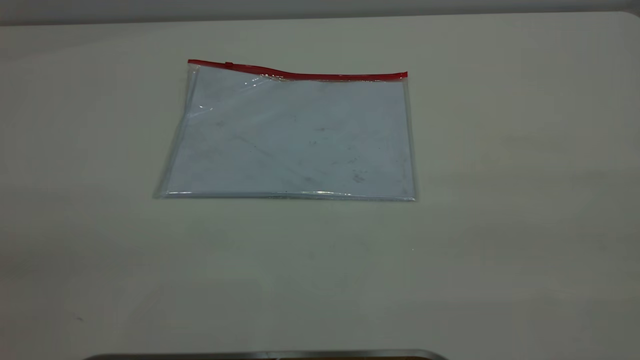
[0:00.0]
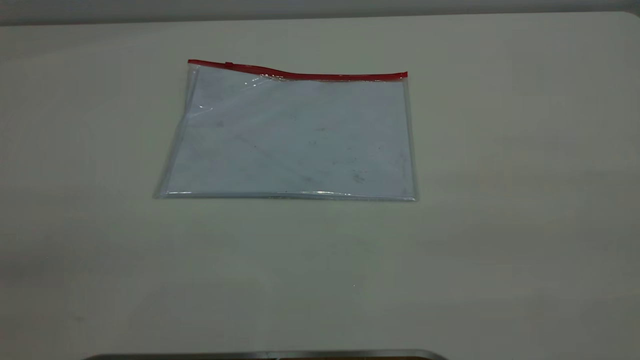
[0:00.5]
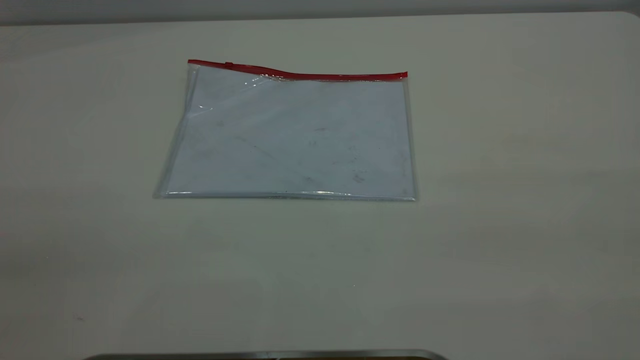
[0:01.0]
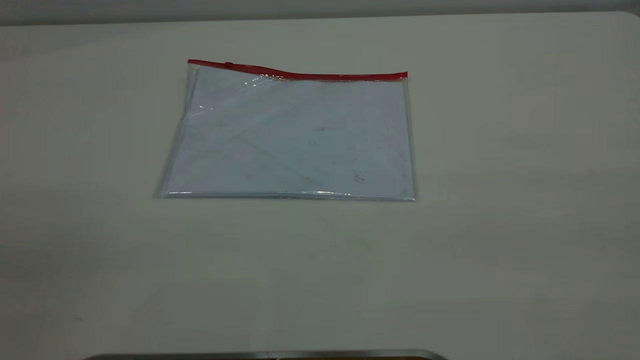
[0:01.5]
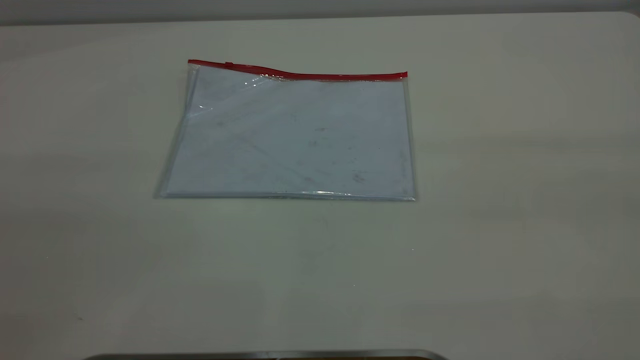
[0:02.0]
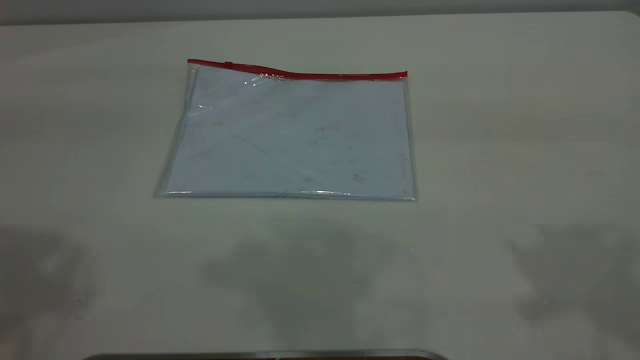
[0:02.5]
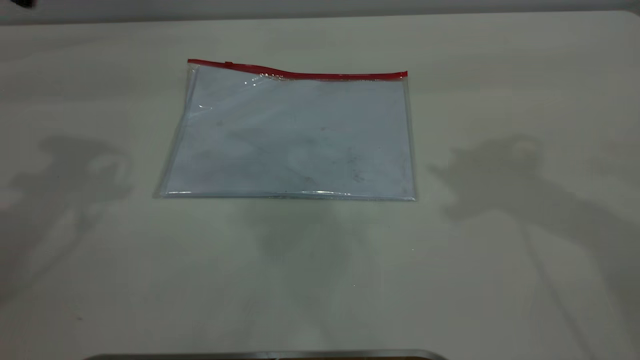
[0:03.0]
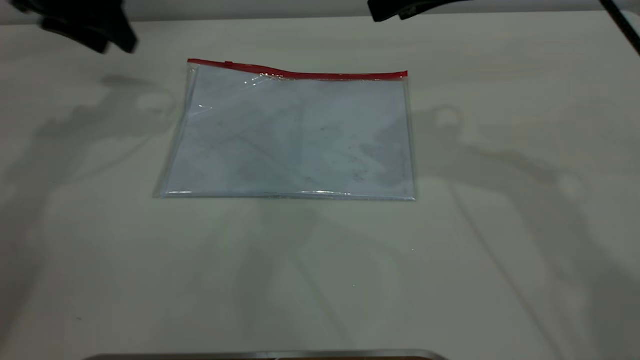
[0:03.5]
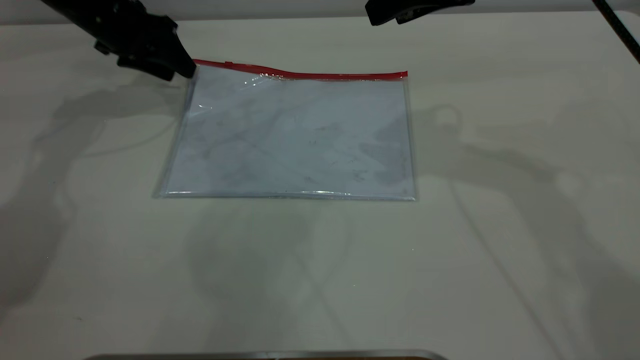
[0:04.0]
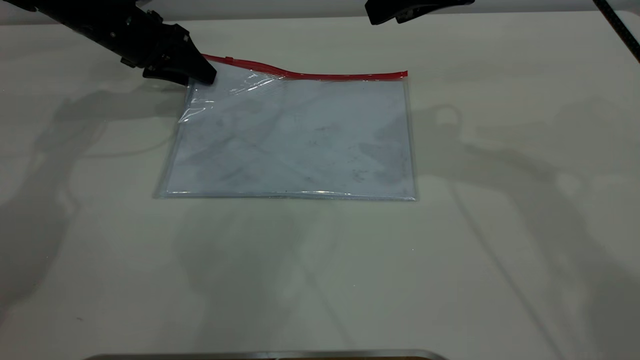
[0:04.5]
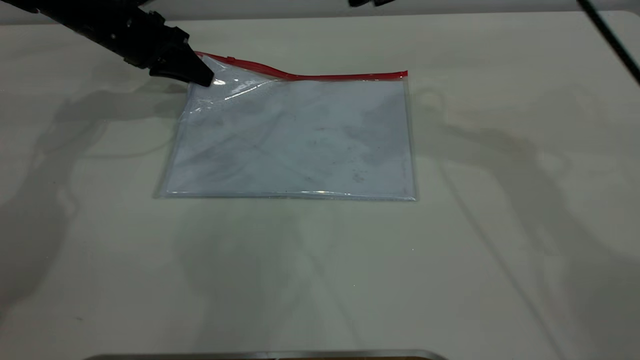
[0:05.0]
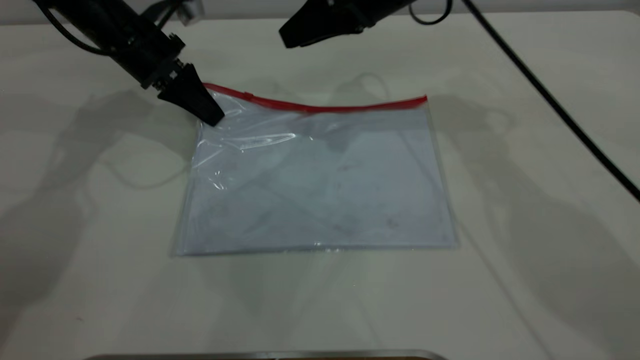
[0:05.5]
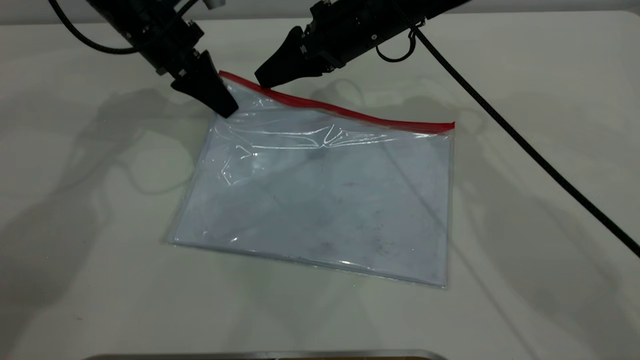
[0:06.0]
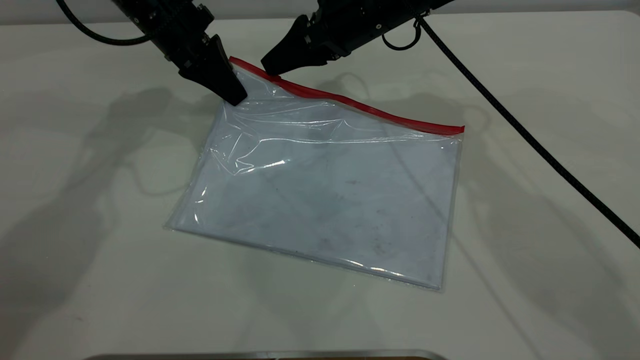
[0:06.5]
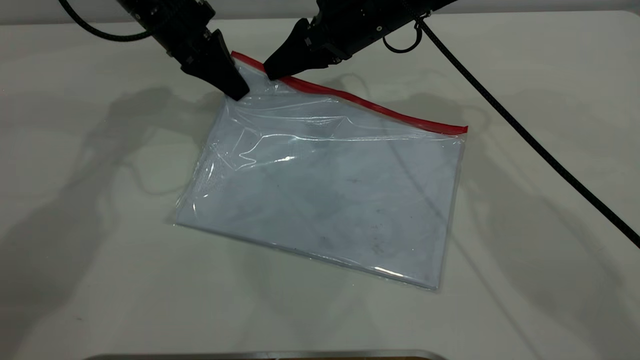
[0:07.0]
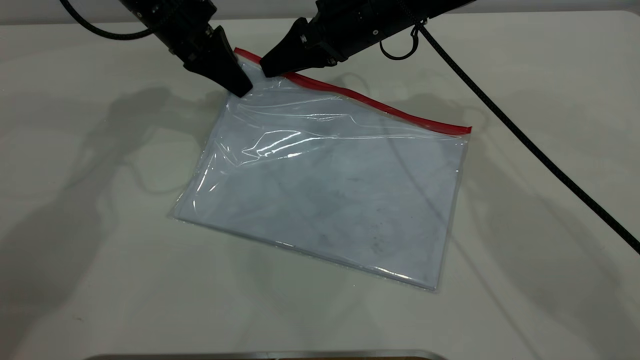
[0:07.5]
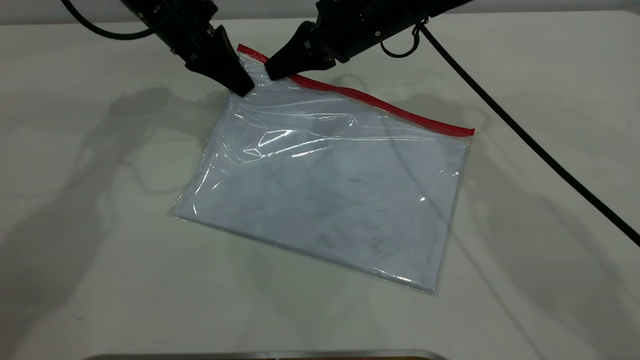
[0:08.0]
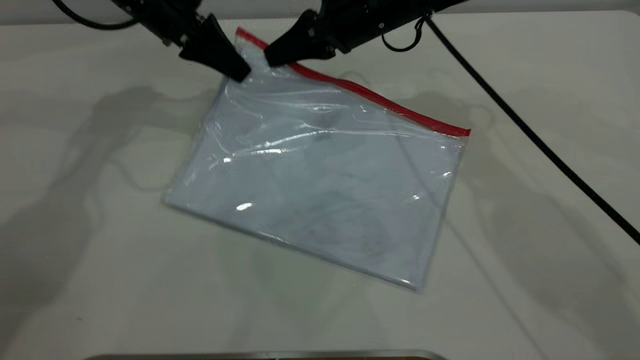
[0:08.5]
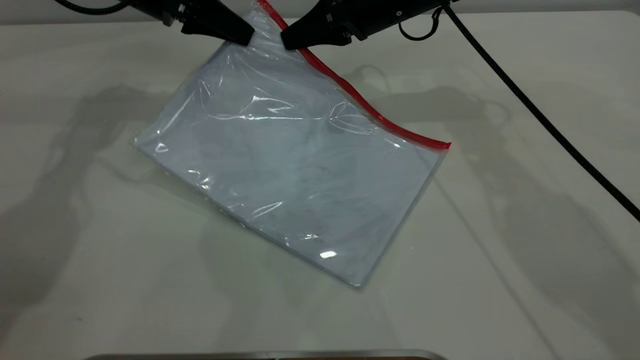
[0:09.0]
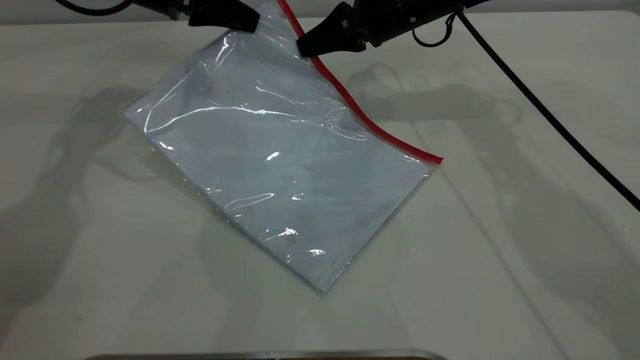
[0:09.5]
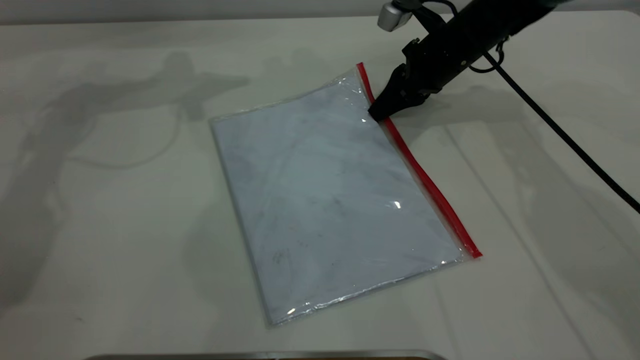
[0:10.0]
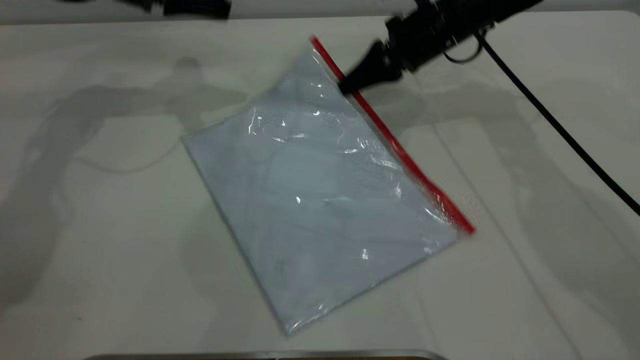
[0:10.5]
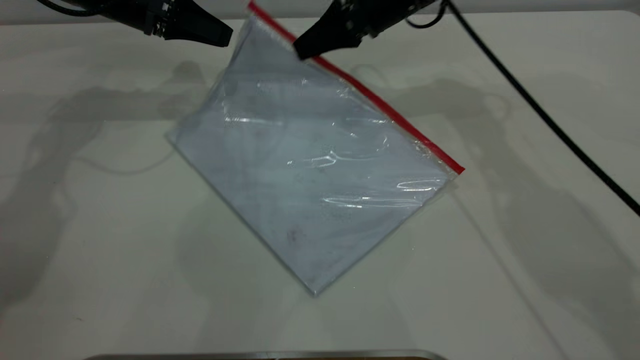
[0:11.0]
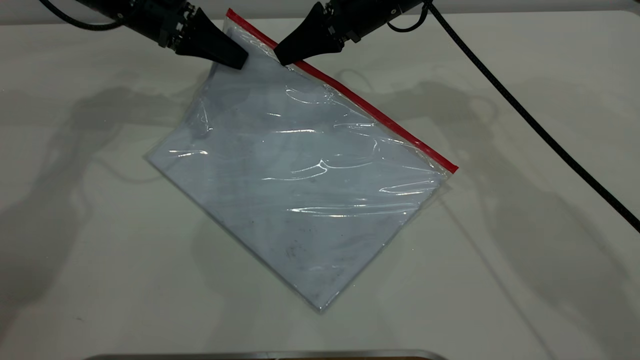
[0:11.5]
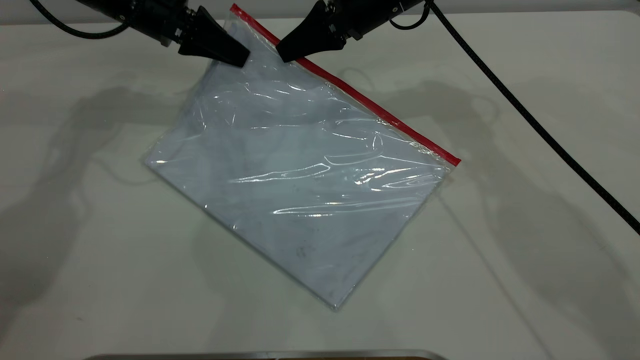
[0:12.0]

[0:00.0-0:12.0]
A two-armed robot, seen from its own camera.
Step, 0:00.0 to 0:04.5: Pick up the transparent plastic bag with the left gripper.
0:02.0 to 0:04.0: The right gripper heads forward, downward and to the left, covering about 40 cm. The left gripper moves forward and downward, some 60 cm.
0:04.0 to 0:06.0: The left gripper moves to the right, about 5 cm, and closes its fingers; the right gripper travels downward, to the left and forward by about 20 cm.
0:06.0 to 0:08.0: The right gripper closes.
0:08.0 to 0:10.0: The left gripper moves to the left, about 5 cm; the right gripper moves to the right and downward, roughly 10 cm.
0:10.0 to 0:12.0: The left gripper is displaced downward by roughly 5 cm, and opens, then closes again; the right gripper travels to the left and upward by about 10 cm.

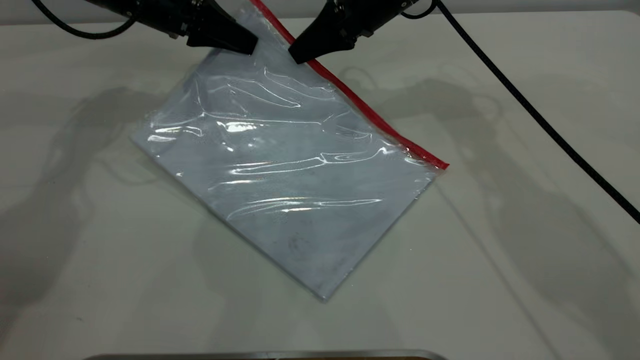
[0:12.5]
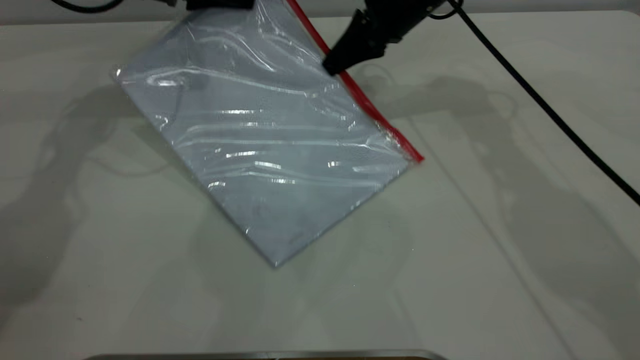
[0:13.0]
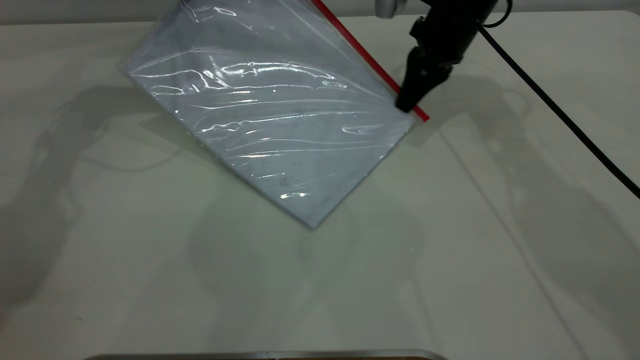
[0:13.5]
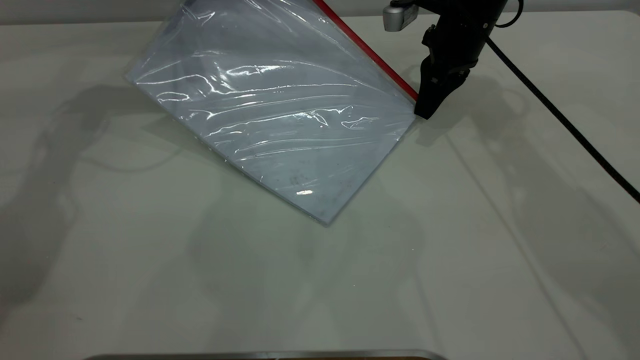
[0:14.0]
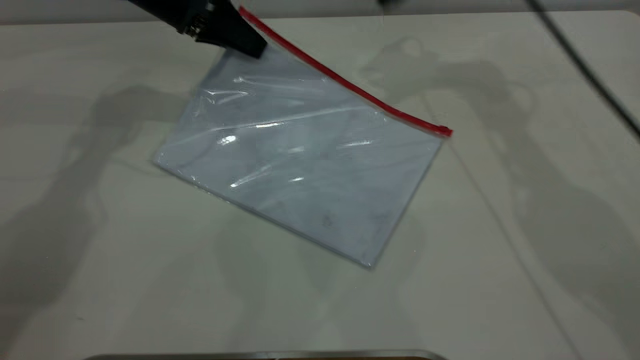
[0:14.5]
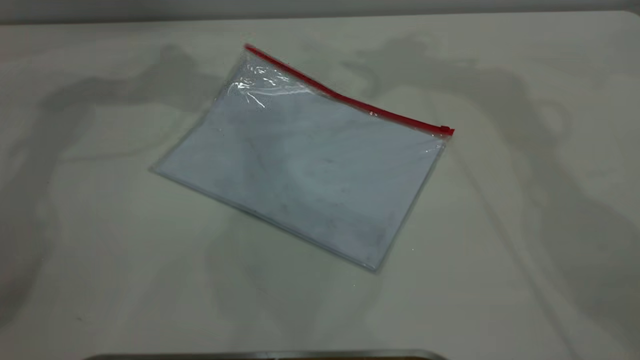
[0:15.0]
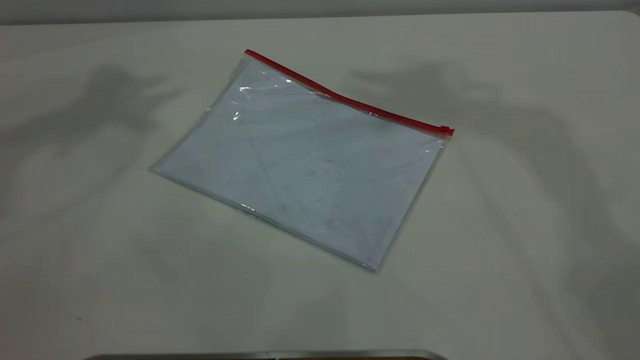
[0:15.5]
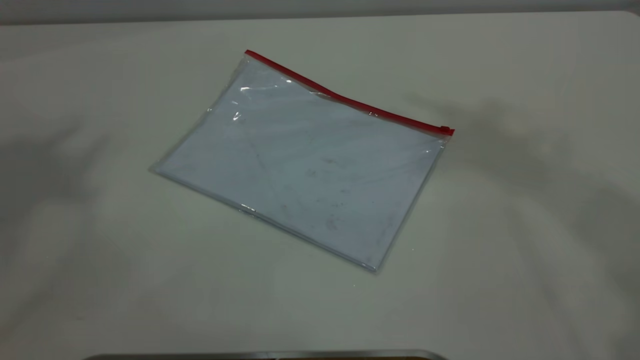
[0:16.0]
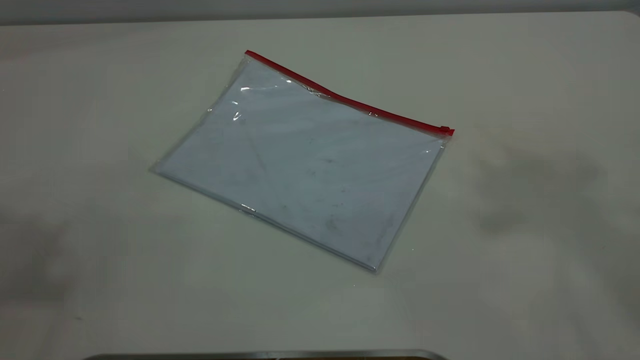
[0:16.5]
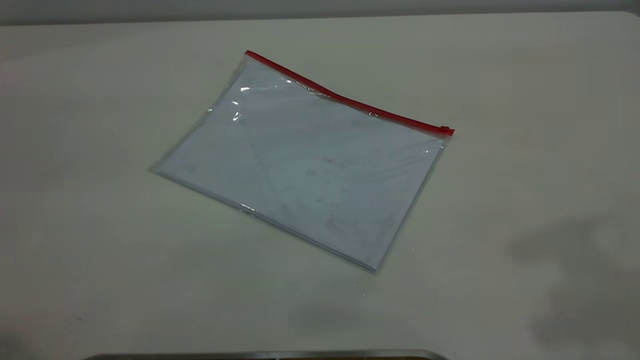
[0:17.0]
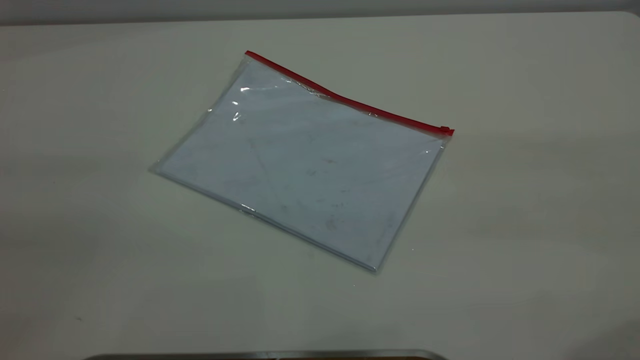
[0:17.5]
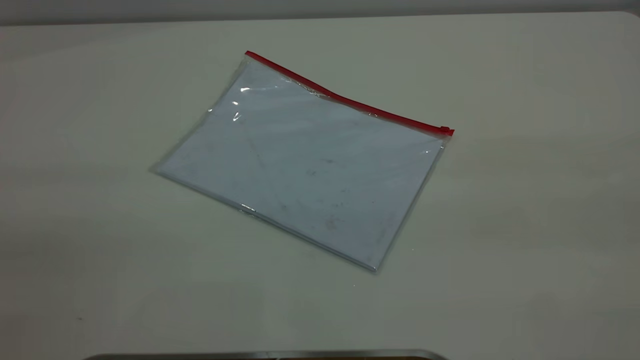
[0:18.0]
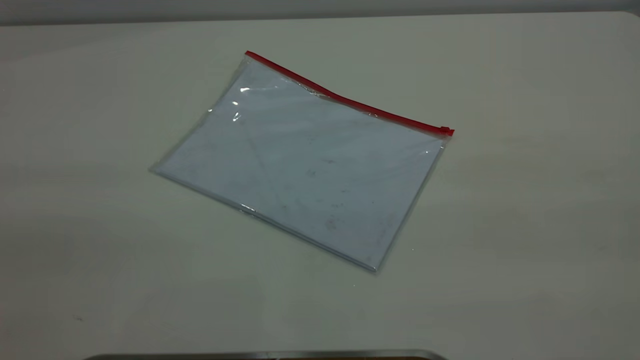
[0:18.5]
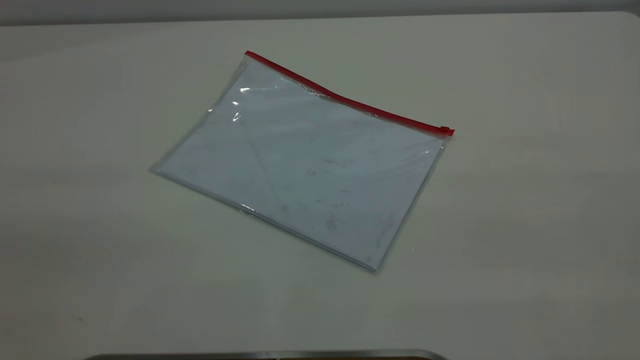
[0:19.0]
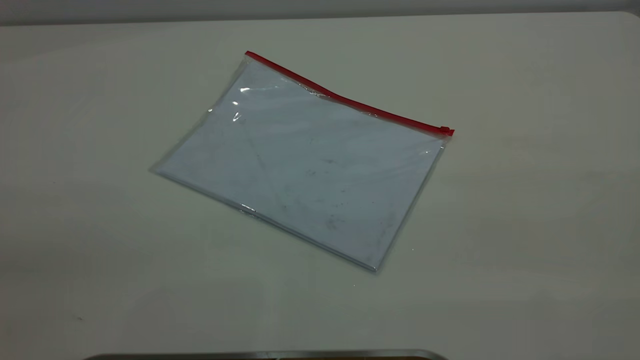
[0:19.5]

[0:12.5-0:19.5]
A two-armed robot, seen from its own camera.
0:12.5 to 0:14.5: The left gripper opens its fingers, while the right gripper is displaced upward and to the right by roughly 15 cm, and opens its fingers.
0:14.5 to 0:16.0: The two grippers go about 50 cm upward and backward.

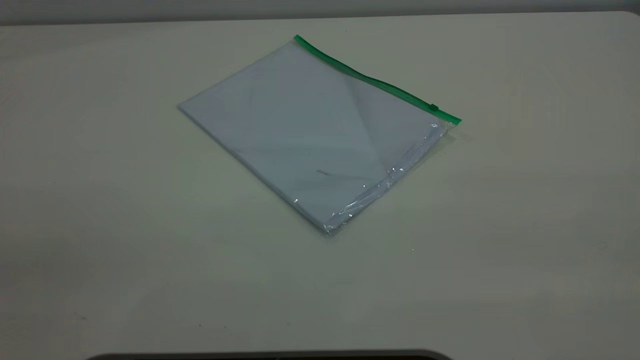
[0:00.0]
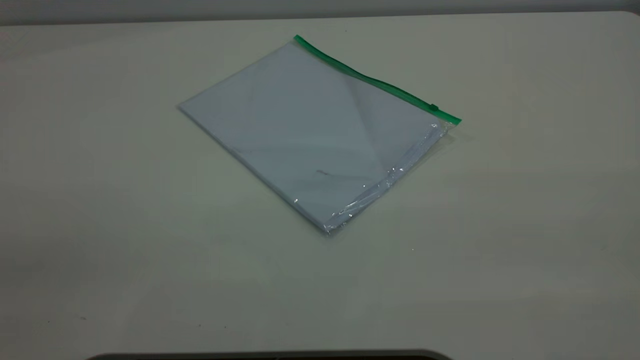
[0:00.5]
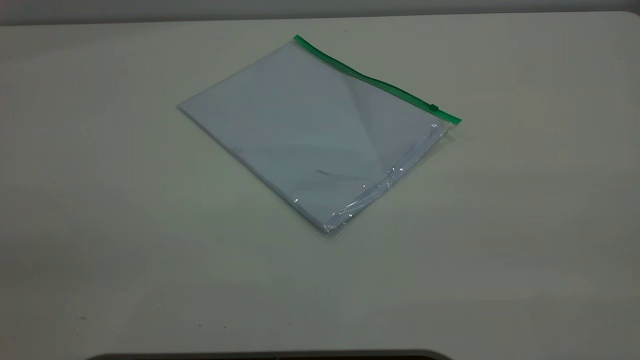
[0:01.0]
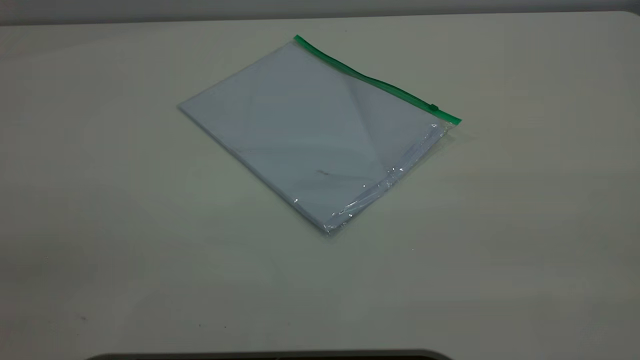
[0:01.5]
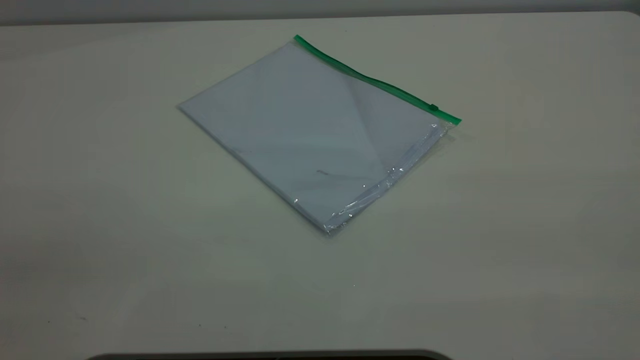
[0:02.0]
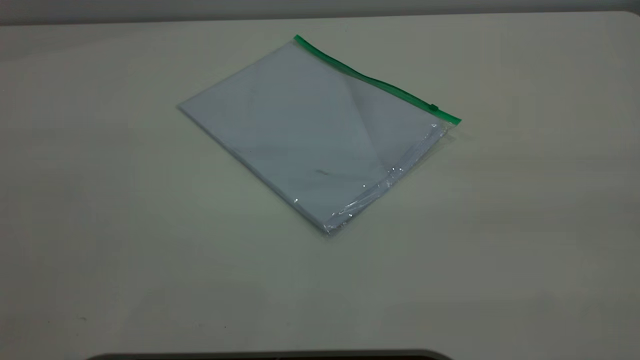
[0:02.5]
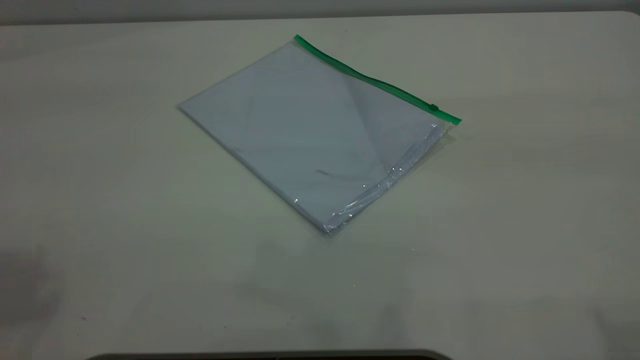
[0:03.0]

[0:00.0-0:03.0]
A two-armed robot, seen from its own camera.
0:00.0 to 0:01.5: The two grippers keep their place.
